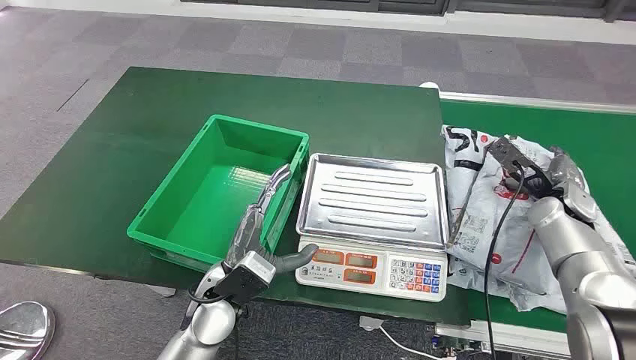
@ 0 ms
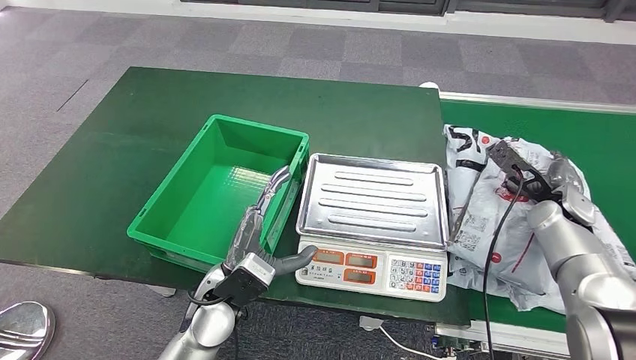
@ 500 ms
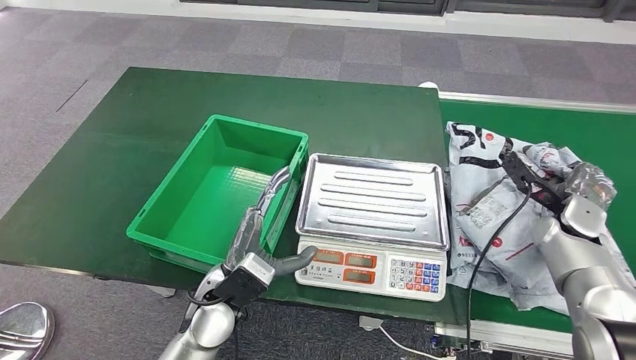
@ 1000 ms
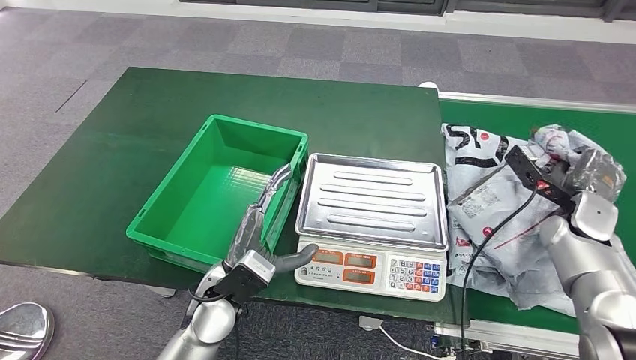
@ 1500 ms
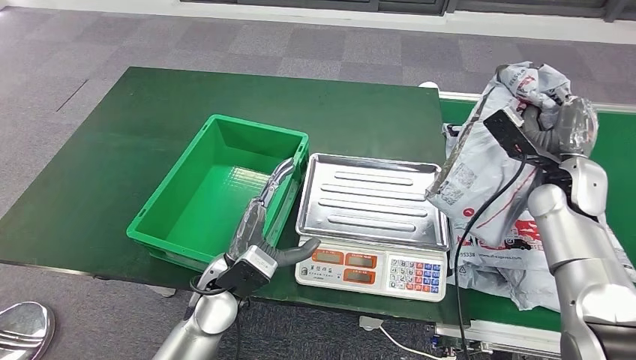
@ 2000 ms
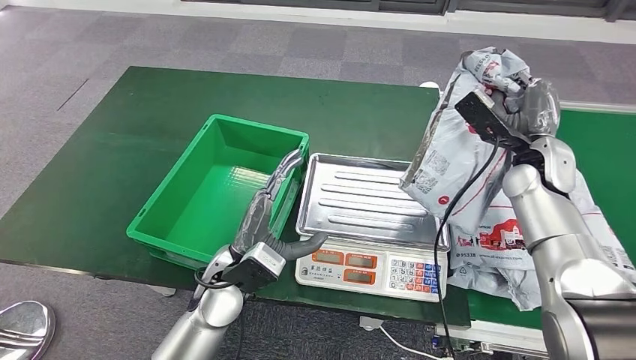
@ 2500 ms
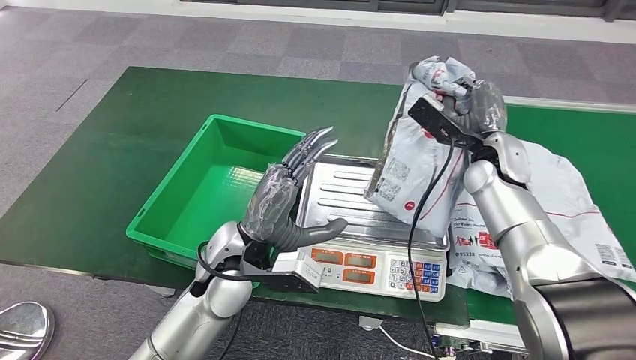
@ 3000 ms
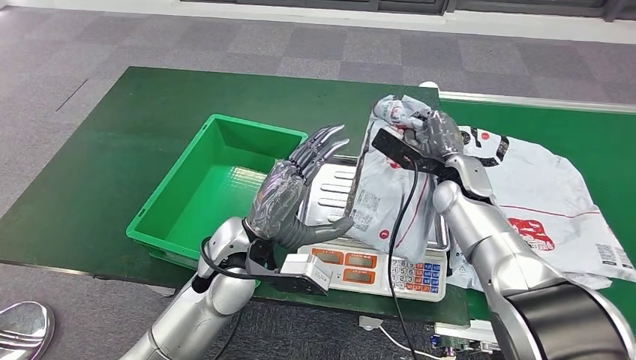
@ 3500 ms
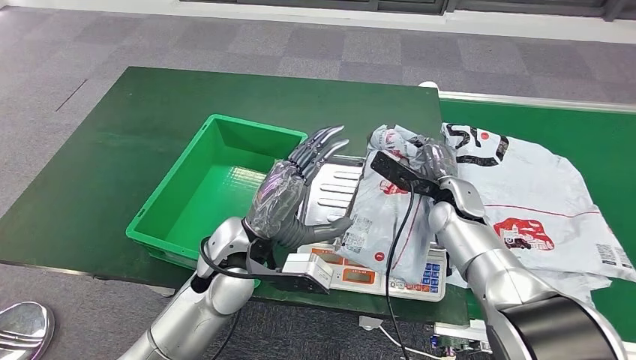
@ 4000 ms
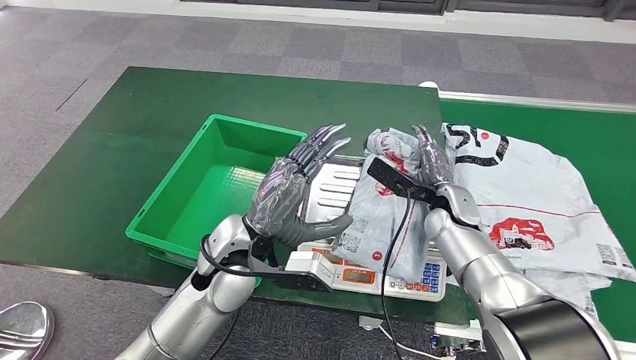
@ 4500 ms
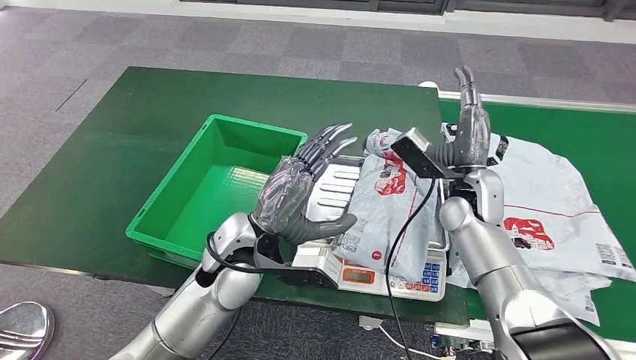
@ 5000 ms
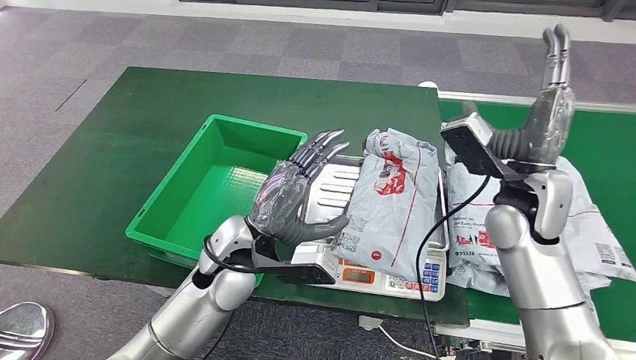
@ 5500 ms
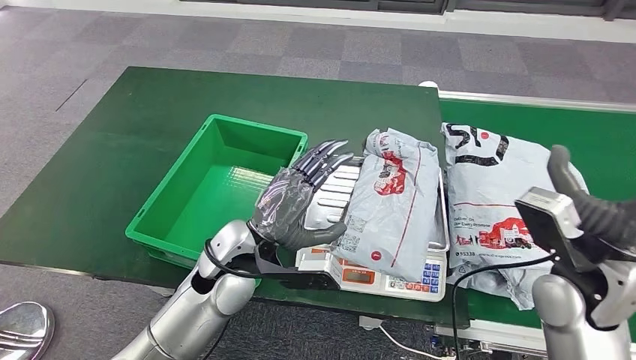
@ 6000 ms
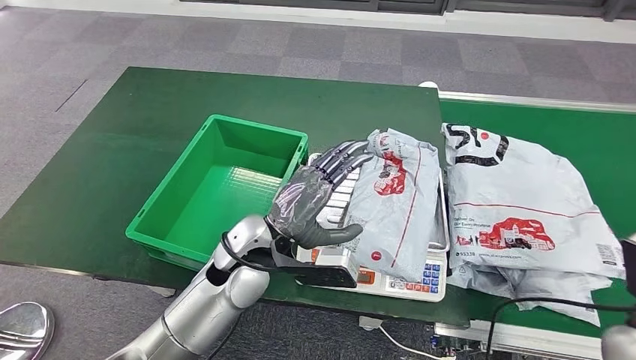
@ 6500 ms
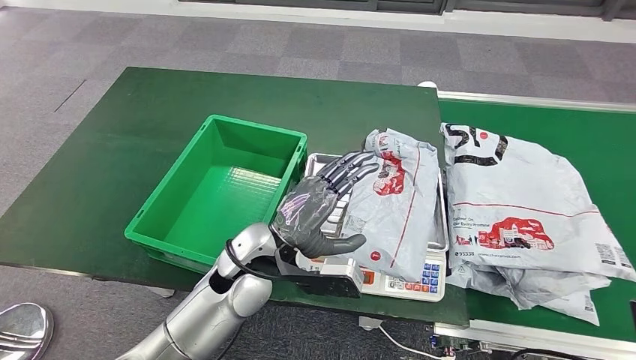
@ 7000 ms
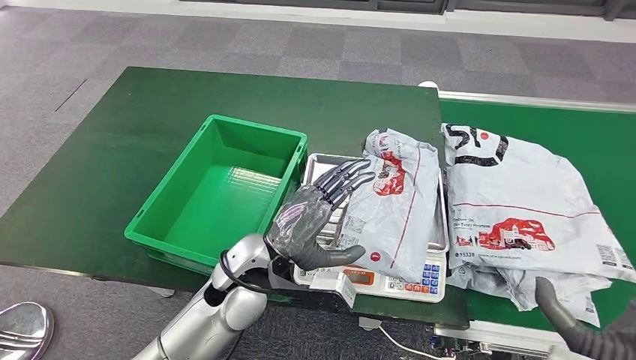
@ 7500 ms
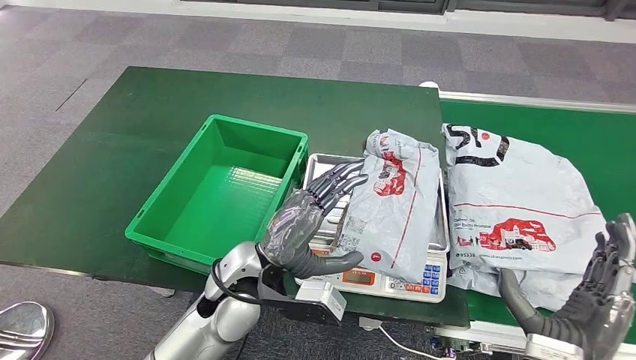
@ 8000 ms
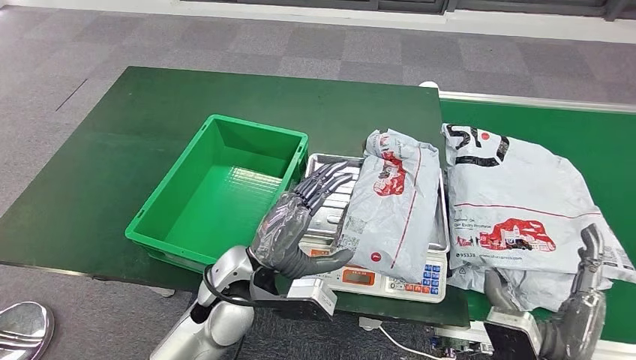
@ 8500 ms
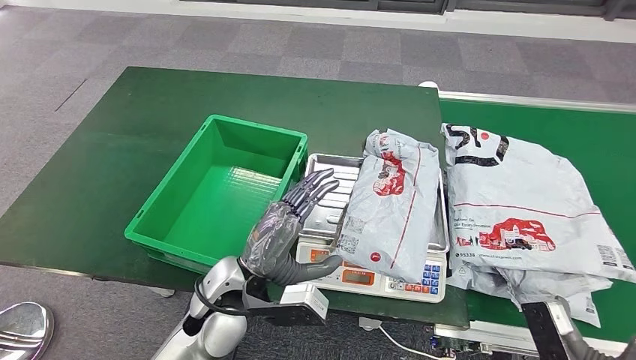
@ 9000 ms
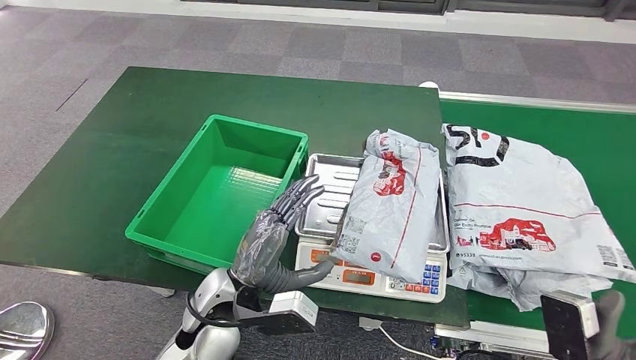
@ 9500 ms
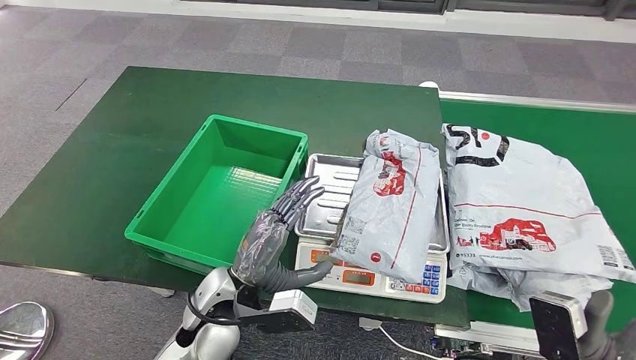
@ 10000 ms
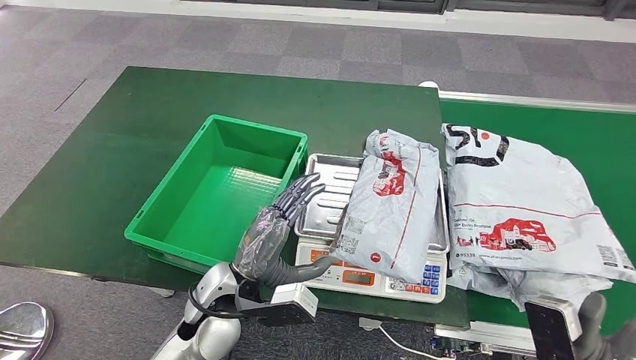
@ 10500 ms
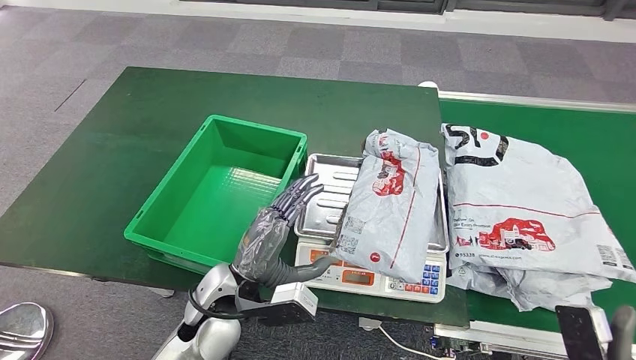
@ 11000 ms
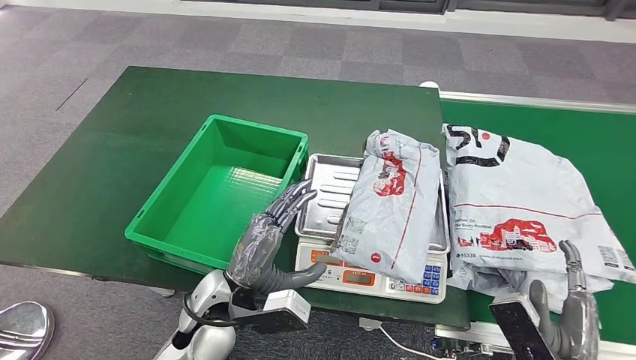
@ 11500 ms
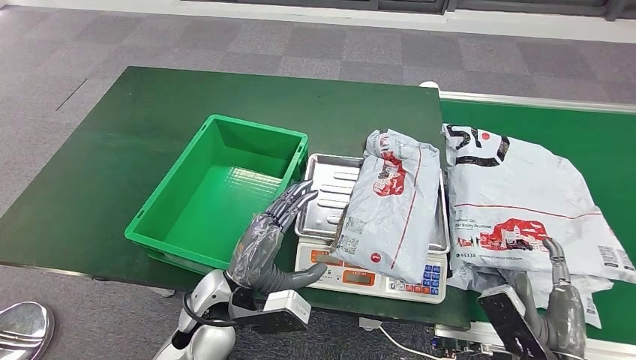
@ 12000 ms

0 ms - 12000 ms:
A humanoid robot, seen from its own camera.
Step, 0 ms - 2500 ms: Take the parcel off the conveyor belt.
Step, 3500 ms - 6500 ms: Place the parcel onto the inbound machine.
4000 ms - 6000 ms: The right hand moves backward, to the right and upward, some 25 cm.
6000 ms - 8000 ms: The right hand is displaced backward and downward by roughly 15 cm.
8000 ms - 10000 ms: The left hand changes place by about 5 cm.

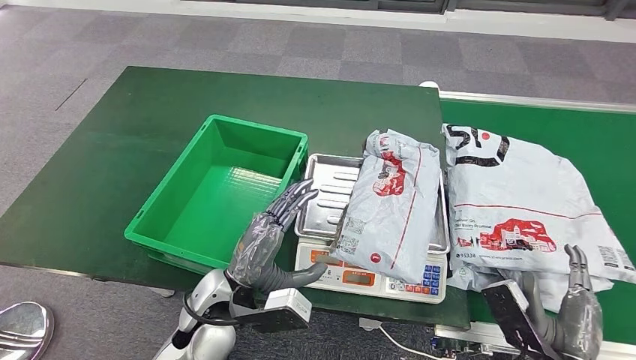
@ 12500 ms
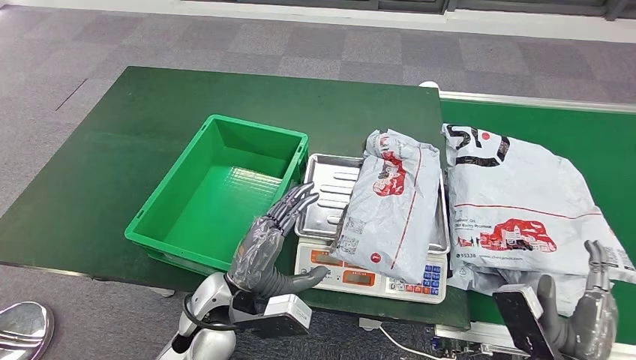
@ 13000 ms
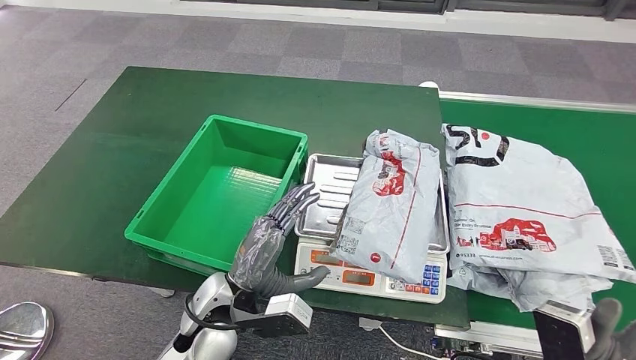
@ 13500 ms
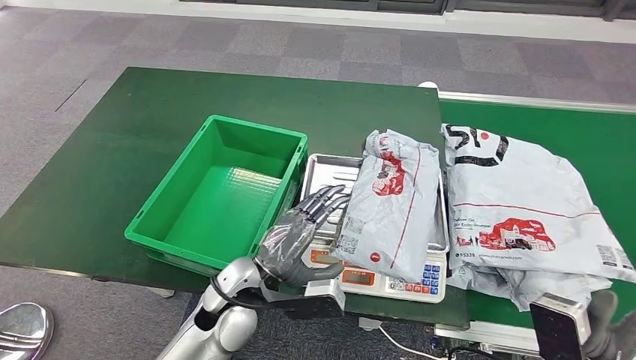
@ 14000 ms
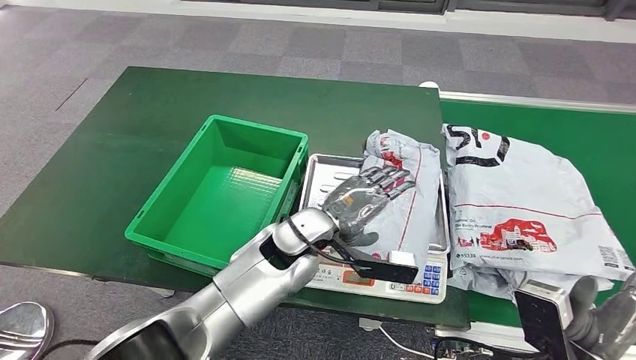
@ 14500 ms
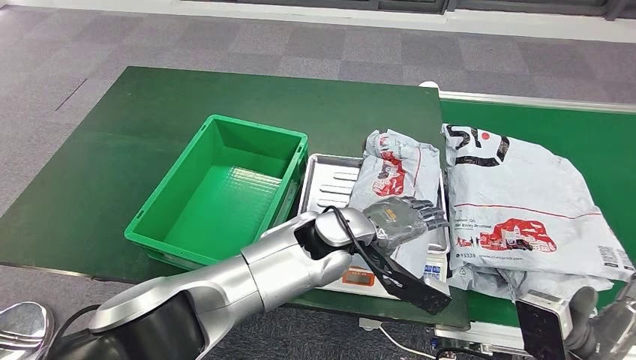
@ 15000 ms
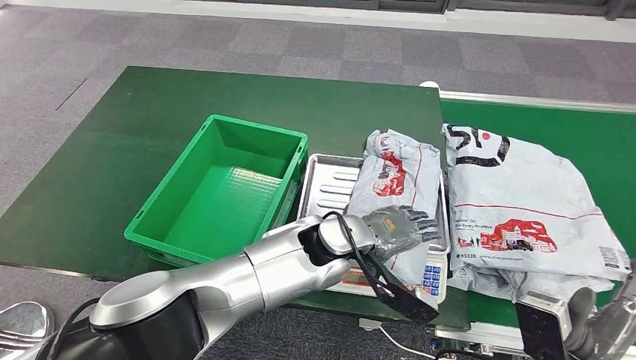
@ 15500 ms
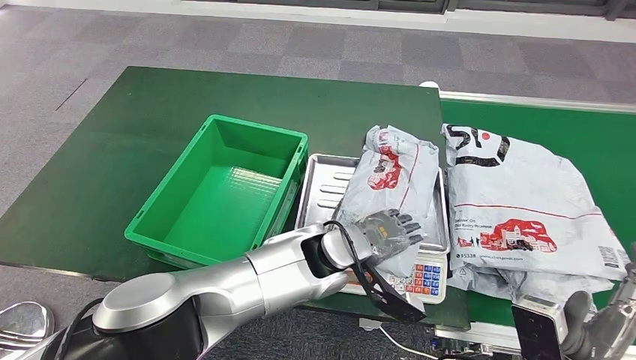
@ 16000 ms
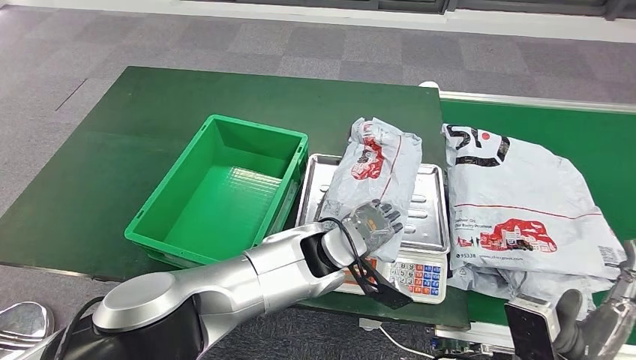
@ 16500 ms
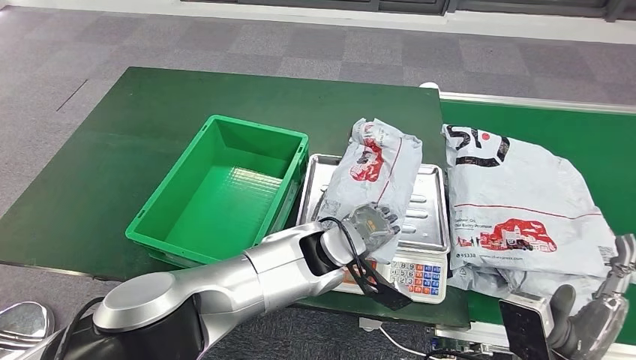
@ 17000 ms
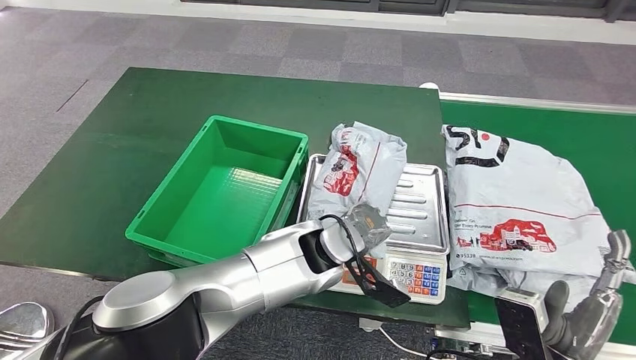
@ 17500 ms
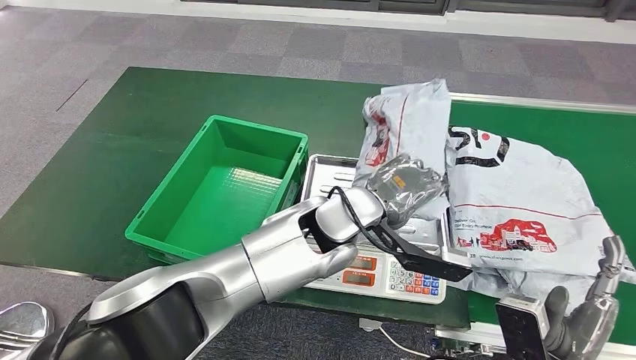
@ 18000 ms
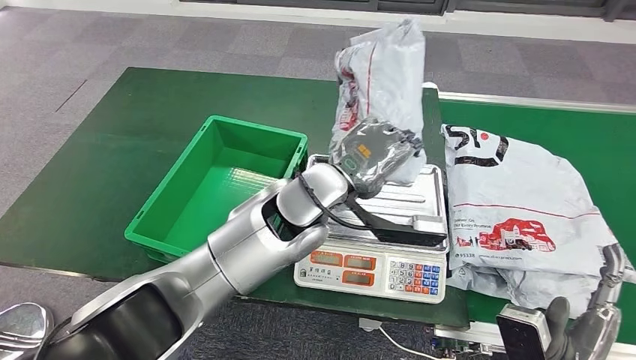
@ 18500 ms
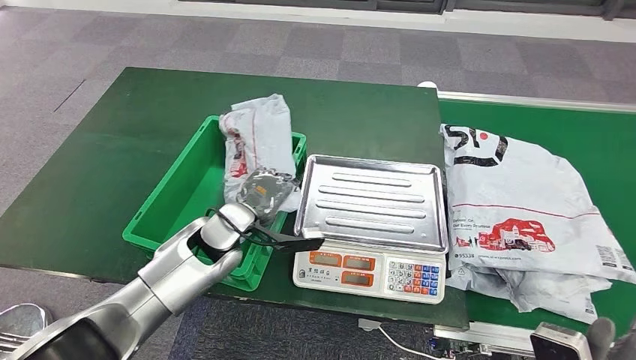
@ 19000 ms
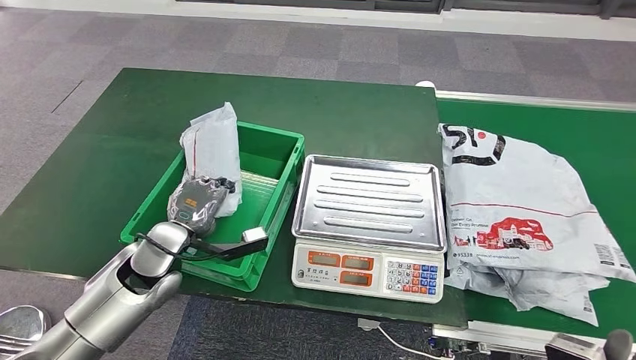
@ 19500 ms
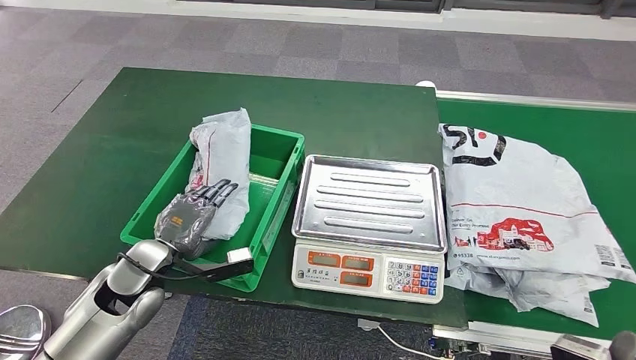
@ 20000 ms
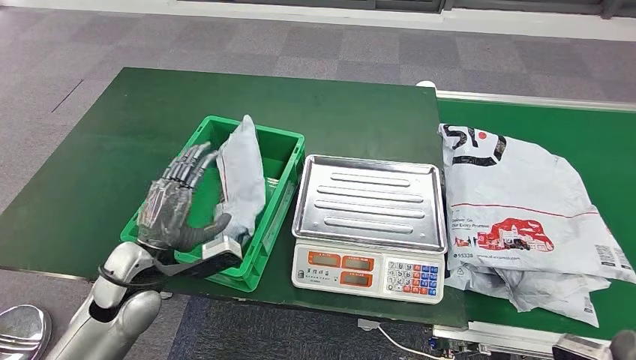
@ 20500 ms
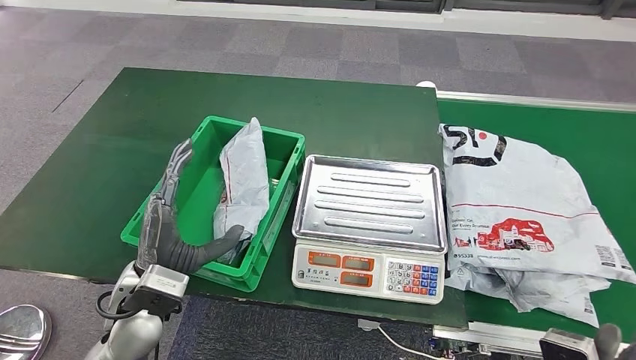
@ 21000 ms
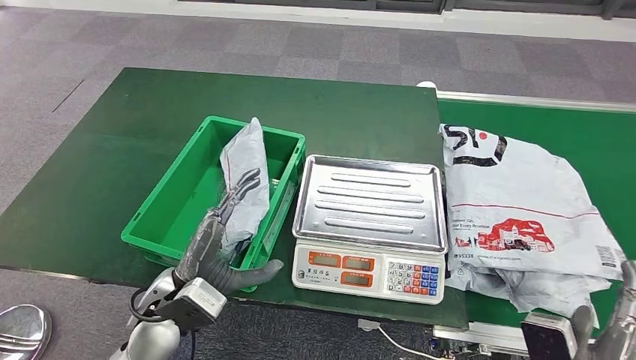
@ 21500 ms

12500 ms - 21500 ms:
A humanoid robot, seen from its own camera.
Step, 17000 ms - 18500 ms: Pick up the parcel from the inbound machine.
Step, 19000 ms - 21500 ms: Put the parcel inside the courier box.
12500 ms - 14500 ms: The left hand goes approximately 15 cm to the right and forward.
14500 ms - 17000 ms: The left hand is displaced to the right by some 5 cm.
19500 ms - 21500 ms: The left hand goes roughly 10 cm backward and to the right.
